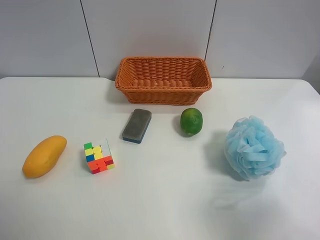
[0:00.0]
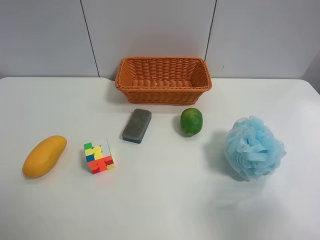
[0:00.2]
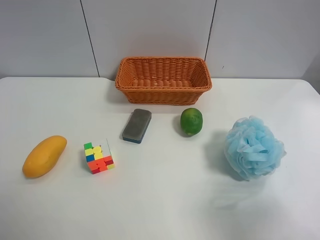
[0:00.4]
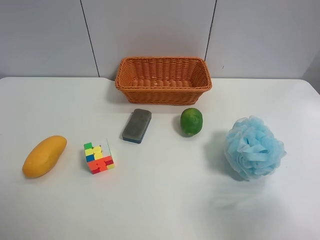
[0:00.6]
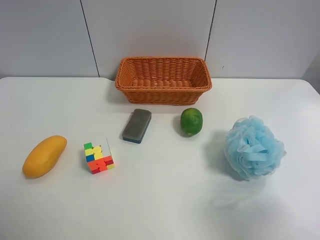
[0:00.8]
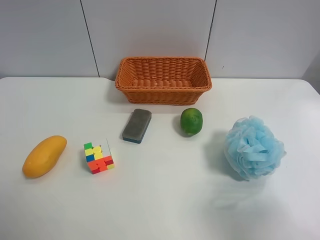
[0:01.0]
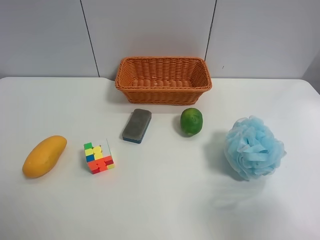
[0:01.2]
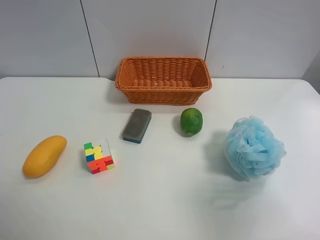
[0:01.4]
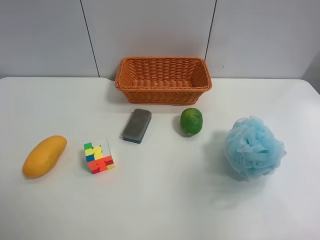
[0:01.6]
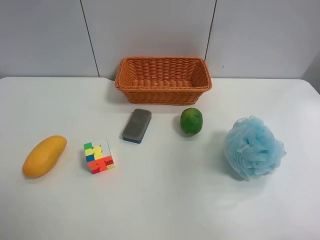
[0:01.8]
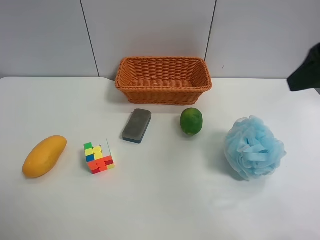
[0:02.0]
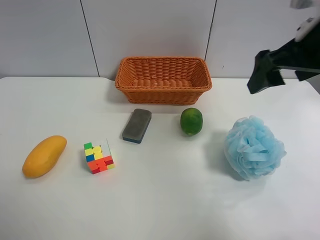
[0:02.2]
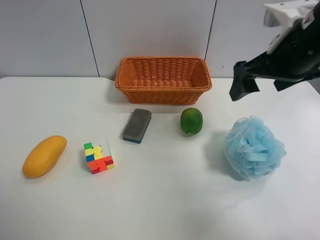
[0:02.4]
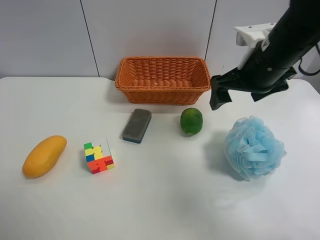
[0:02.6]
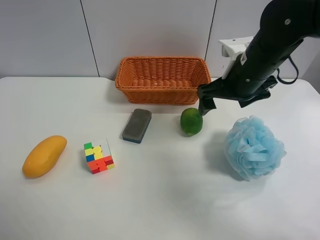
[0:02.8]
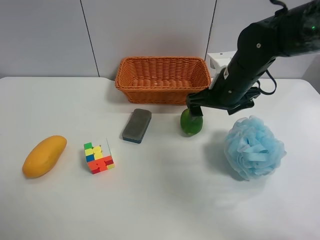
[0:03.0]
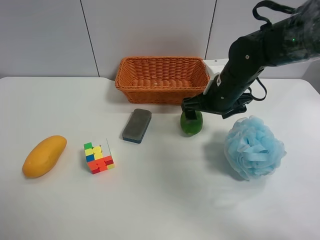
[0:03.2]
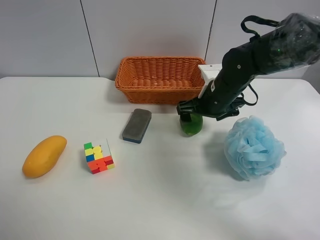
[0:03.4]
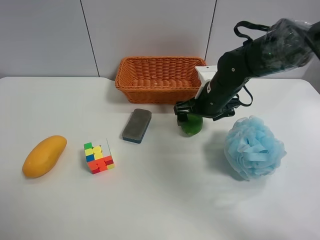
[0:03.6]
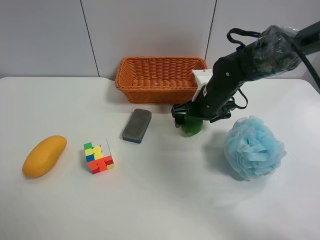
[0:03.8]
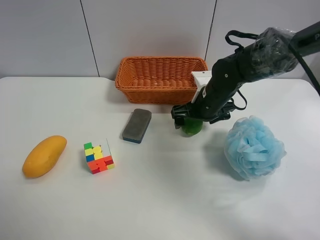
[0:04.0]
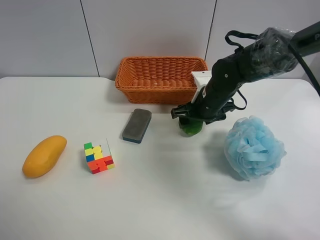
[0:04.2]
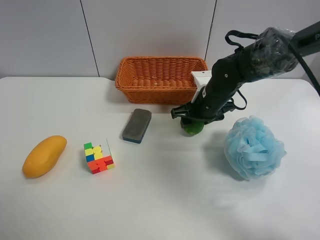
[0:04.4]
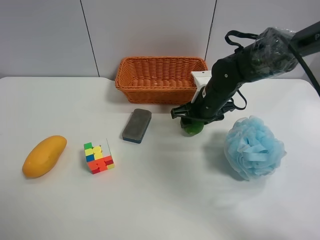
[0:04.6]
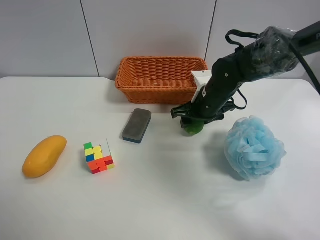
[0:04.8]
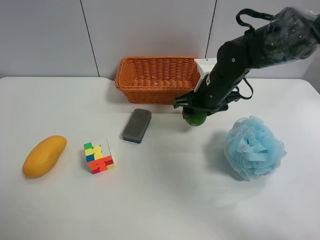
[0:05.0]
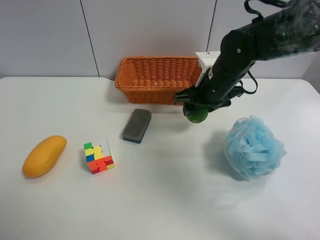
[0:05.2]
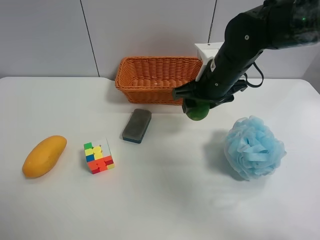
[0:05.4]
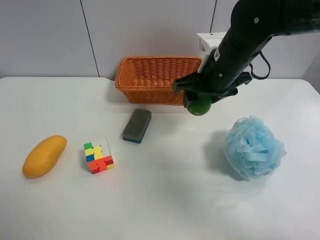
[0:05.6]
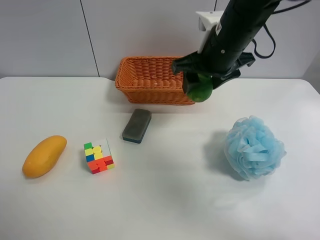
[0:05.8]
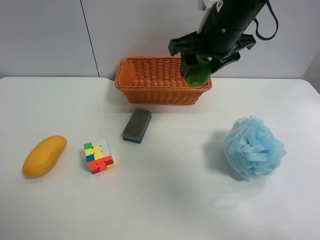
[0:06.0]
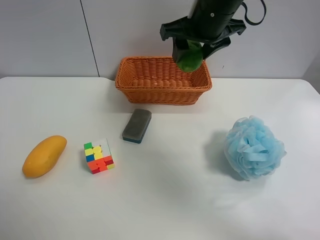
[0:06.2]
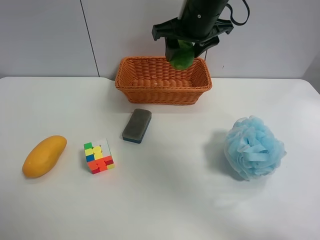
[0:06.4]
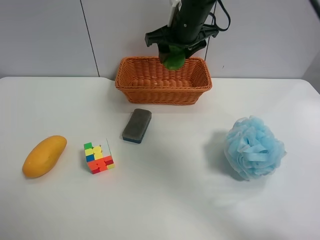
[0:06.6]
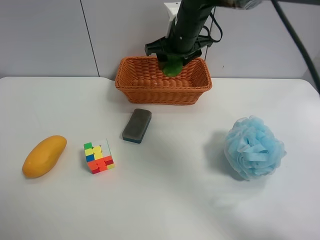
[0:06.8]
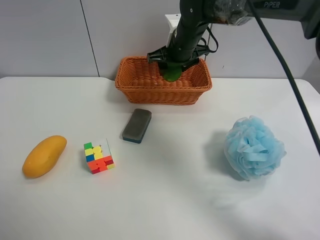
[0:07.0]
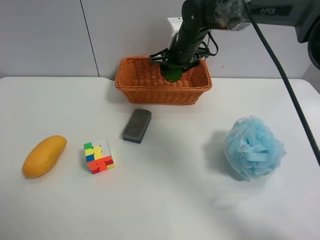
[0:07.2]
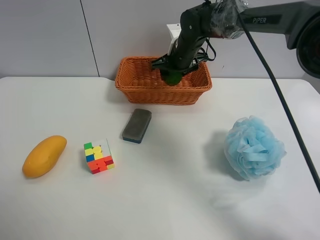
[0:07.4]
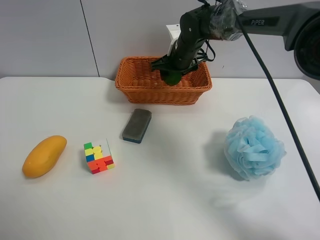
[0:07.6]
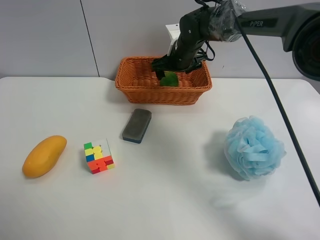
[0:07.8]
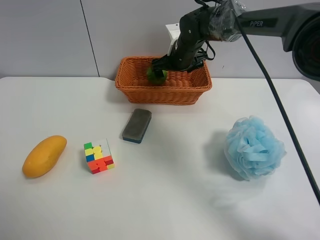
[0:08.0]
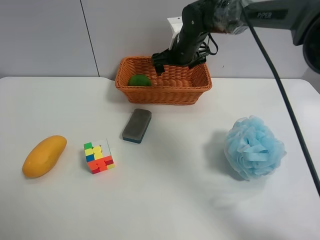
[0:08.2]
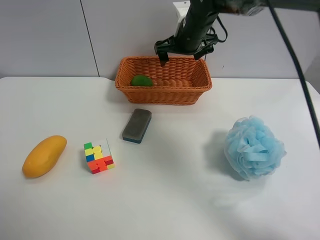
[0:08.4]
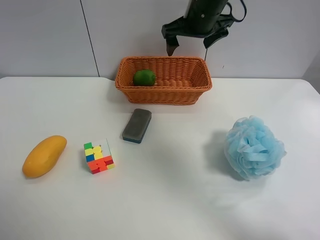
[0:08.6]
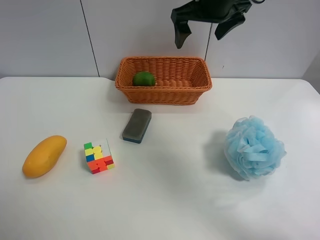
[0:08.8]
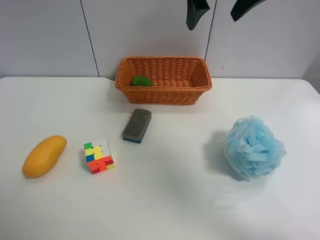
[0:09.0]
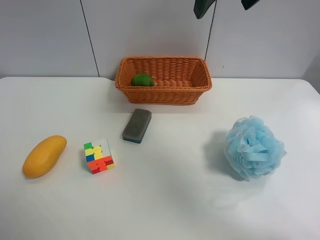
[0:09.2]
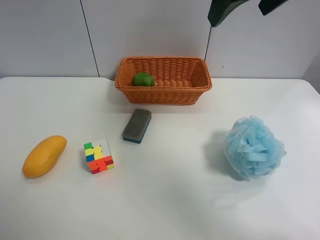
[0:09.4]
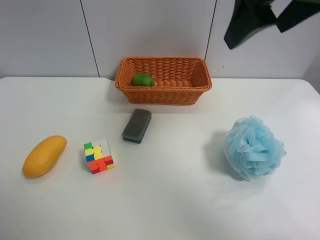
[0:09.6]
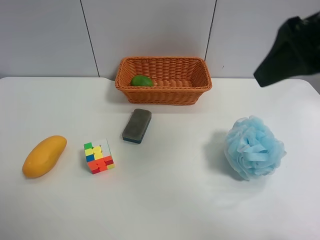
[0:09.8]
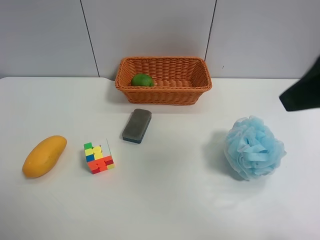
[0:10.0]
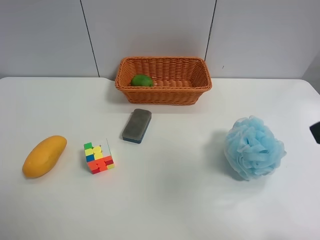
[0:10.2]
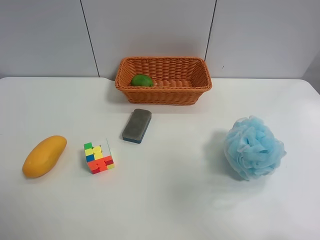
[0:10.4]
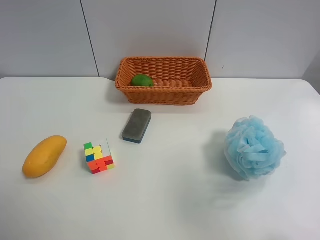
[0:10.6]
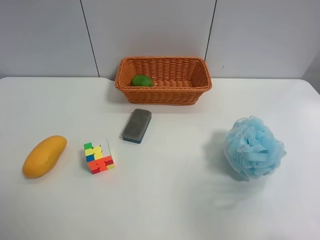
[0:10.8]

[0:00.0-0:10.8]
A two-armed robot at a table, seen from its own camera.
Task of the whole recording: Randomly grab green lemon or mangoes from the table and put them in a basket.
Step, 0:00.0 to 0:04.4: Grasp the Lemon with the right gripper.
Step, 0:04.6 to 0:08.4: Place the Lemon into the basket with the right gripper.
0:00.0 to 0:01.6: The right gripper is displaced upward and forward by approximately 10 cm.
0:01.6 to 0:03.0: The right gripper moves forward, downward and to the left, approximately 35 cm.
0:03.0 to 0:04.6: The right gripper shifts approximately 5 cm downward, and closes up.
0:04.6 to 0:06.2: The right gripper shifts about 20 cm upward.
0:06.2 to 0:07.8: The right gripper travels downward and forward by approximately 20 cm, and opens up.
0:07.8 to 0:09.2: The right gripper heads upward and backward, covering some 25 cm.
0:09.2 to 0:10.8: The right gripper shifts roughly 30 cm backward and to the right.

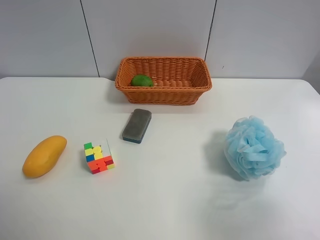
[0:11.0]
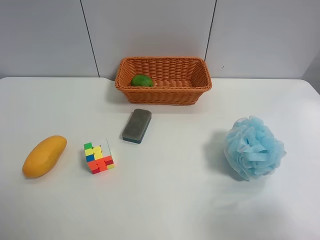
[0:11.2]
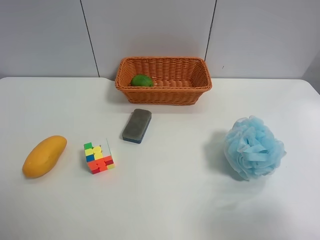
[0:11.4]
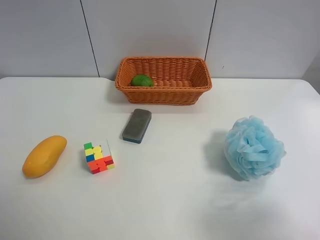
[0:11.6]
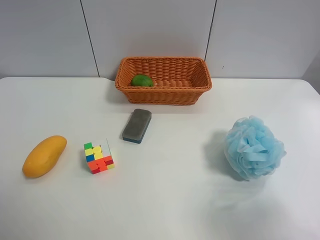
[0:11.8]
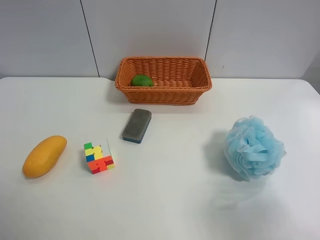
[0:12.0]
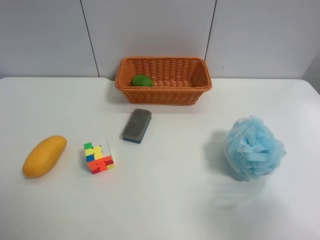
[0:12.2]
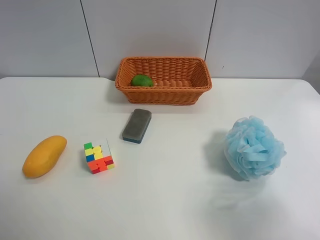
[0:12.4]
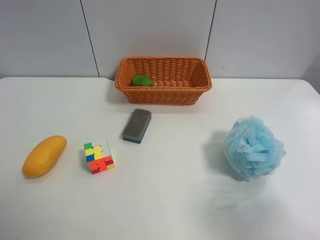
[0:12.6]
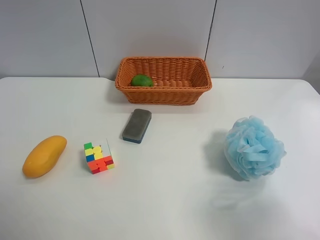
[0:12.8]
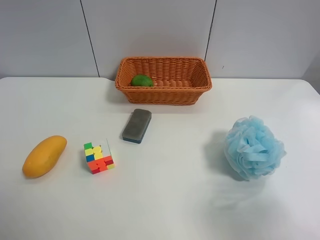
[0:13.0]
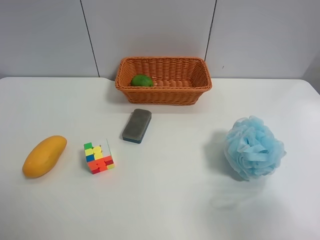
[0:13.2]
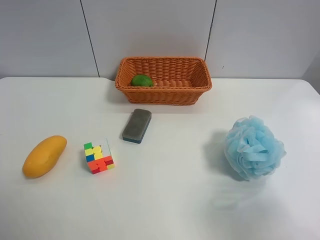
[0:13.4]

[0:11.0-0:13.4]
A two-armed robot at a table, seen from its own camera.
Task of the whole recording: Randomly grab green lemon or mangoes from the table and put them in a basket.
0:12.2 to 0:13.4: The two grippers keep their place.

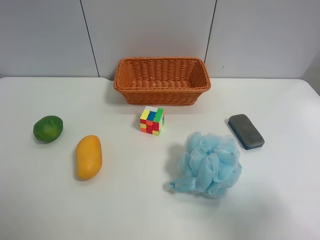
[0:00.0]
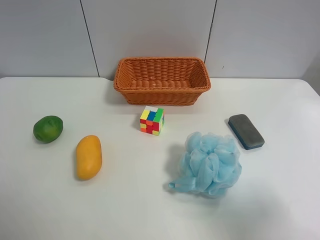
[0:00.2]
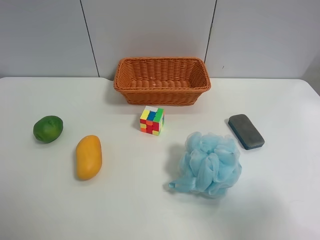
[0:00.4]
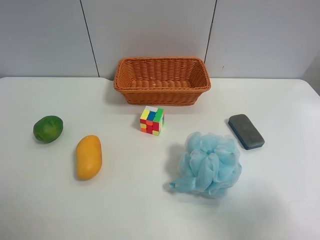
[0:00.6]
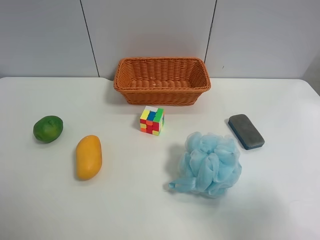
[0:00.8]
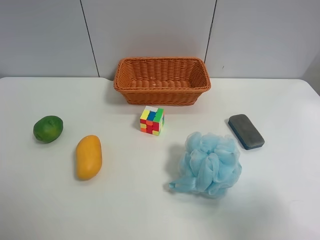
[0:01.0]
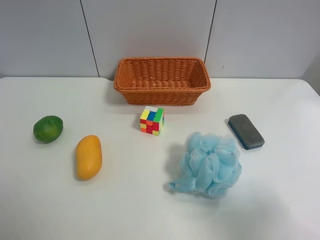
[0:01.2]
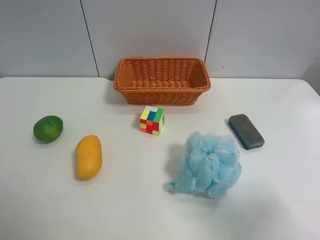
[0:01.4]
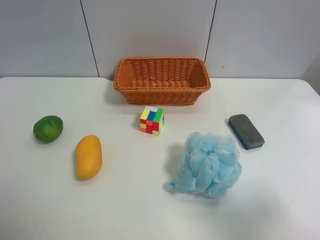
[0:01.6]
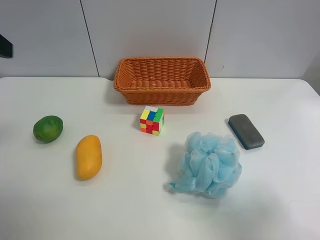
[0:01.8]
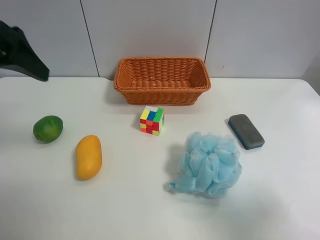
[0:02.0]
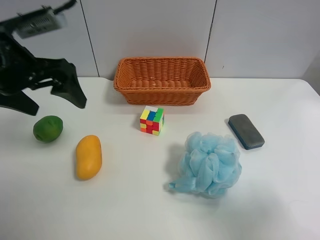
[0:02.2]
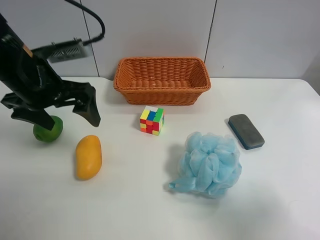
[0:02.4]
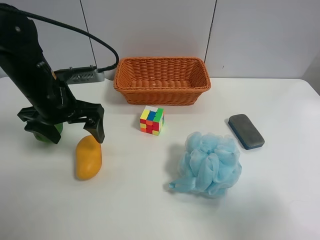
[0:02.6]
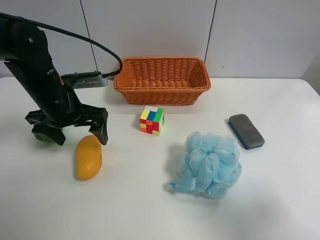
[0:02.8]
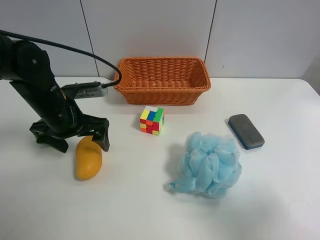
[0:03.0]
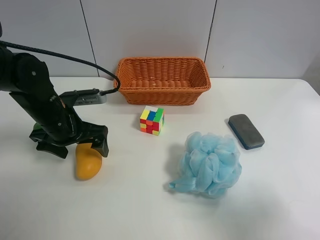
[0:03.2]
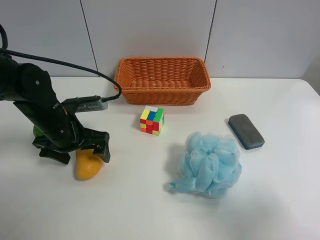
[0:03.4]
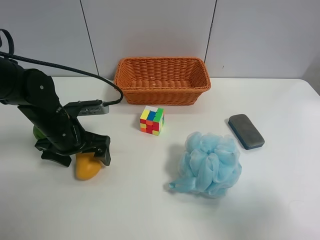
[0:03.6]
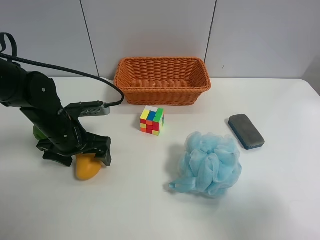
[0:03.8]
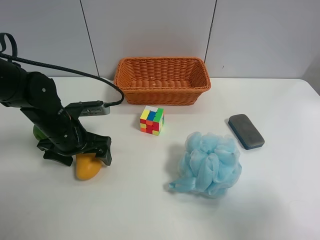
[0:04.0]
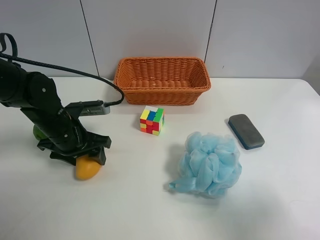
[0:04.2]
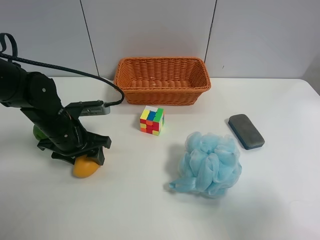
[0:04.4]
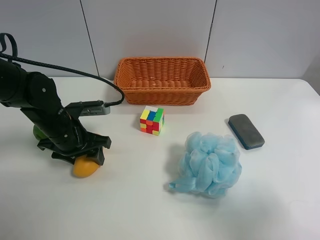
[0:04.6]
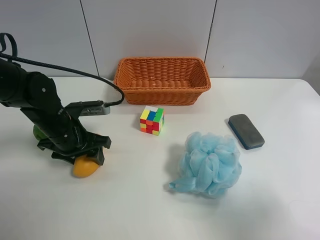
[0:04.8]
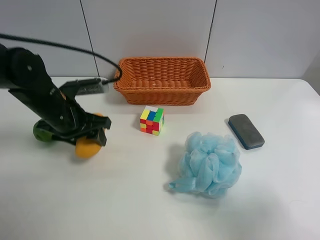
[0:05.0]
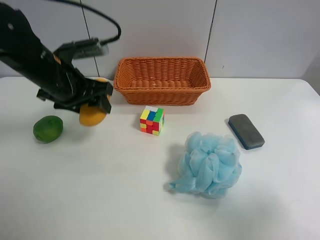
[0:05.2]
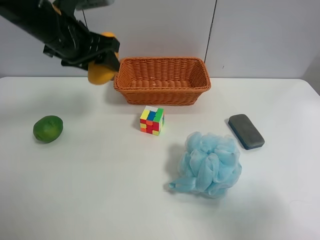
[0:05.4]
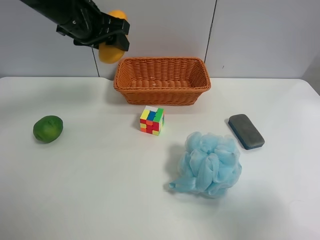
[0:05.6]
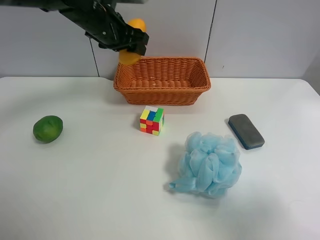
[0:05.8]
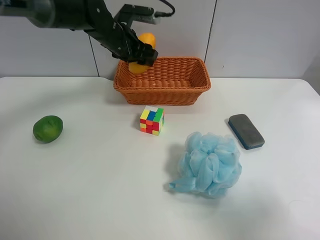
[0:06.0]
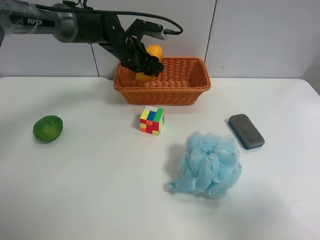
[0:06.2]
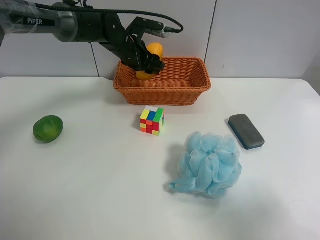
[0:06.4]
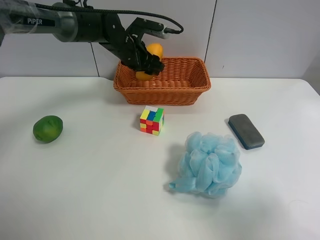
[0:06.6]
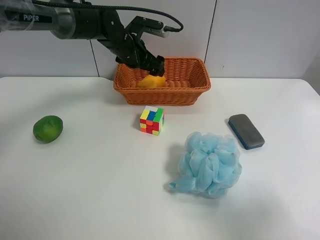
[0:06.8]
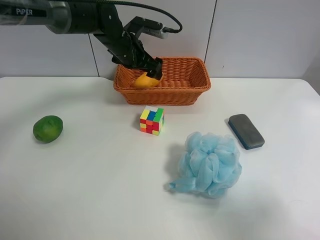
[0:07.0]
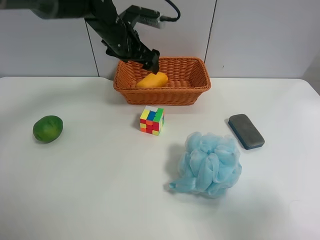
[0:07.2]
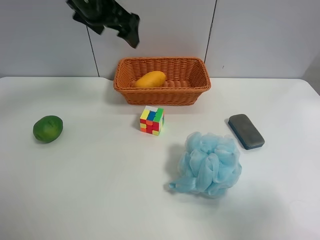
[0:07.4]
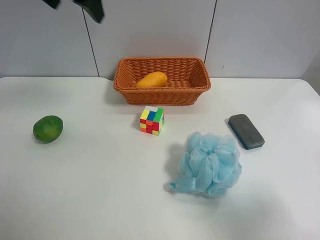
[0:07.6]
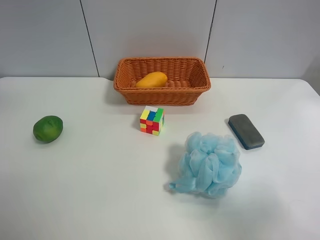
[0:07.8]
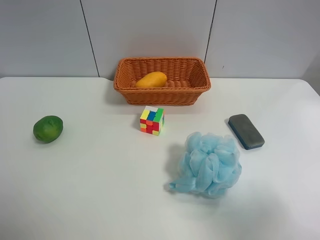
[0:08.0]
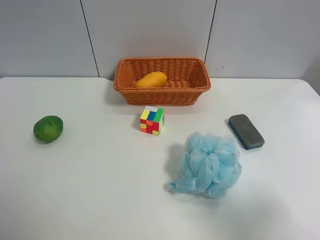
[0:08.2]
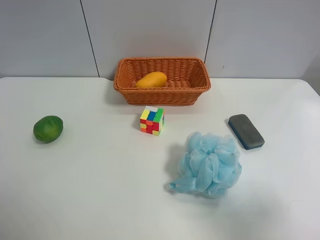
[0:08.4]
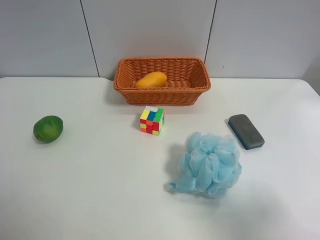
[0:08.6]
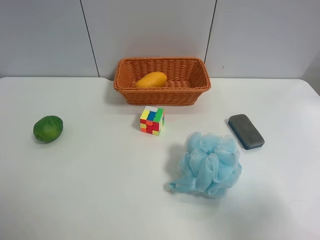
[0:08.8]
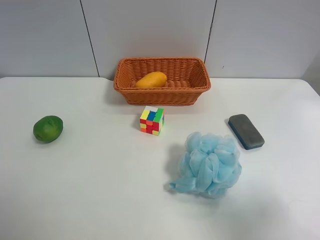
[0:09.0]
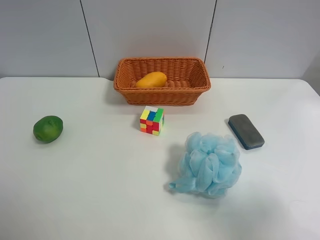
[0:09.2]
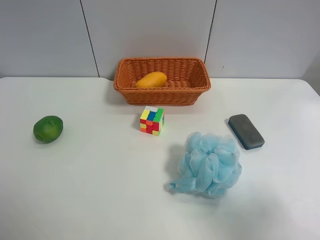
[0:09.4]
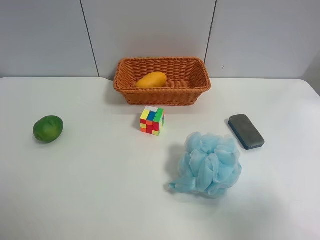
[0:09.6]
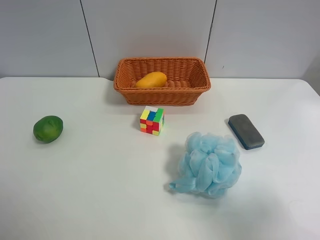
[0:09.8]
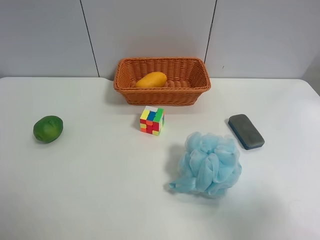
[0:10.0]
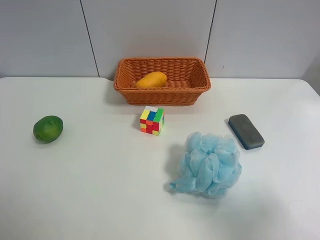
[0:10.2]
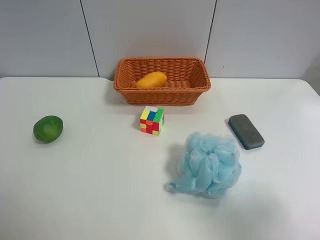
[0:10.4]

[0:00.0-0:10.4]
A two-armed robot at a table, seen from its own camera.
Task of the whole recording: Randomly grab green lemon or mangoes from the table and put them in a basket.
Step, 0:00.0 to 0:04.4: Grasp the mango with the left gripper.
Step, 0:04.6 to 0:07.2: Place the mango into the basket with the left gripper.
0:01.4 to 0:03.0: The left gripper heads downward, forward and to the right, covering some 30 cm.
0:03.0 to 0:04.4: The left gripper closes.
0:04.4 to 0:06.0: The left gripper is displaced forward, upward and to the right by approximately 25 cm.
0:06.0 to 0:07.4: The left gripper moves upward and backward, some 15 cm, and opens.
0:07.4 to 0:09.0: The left gripper travels backward and to the left by roughly 40 cm.
